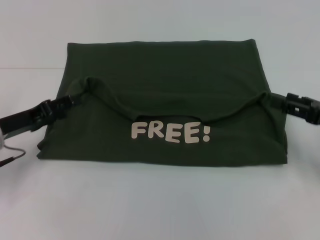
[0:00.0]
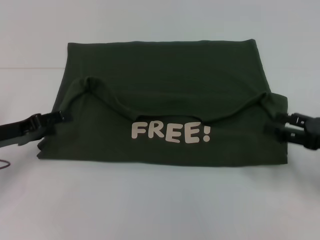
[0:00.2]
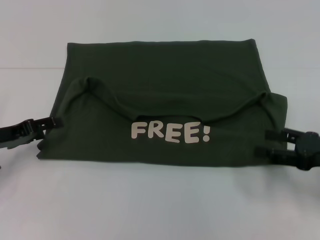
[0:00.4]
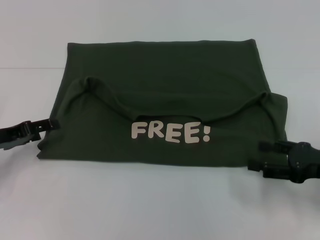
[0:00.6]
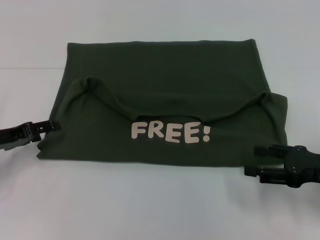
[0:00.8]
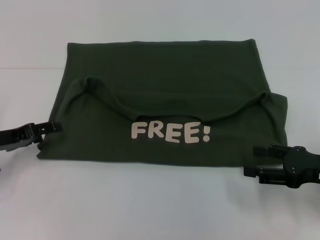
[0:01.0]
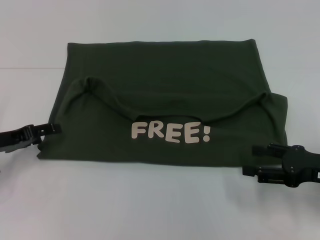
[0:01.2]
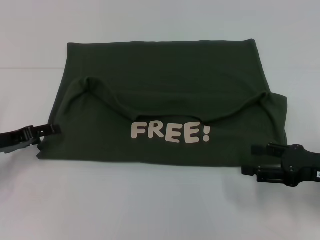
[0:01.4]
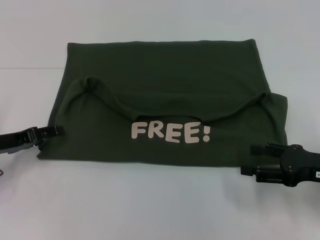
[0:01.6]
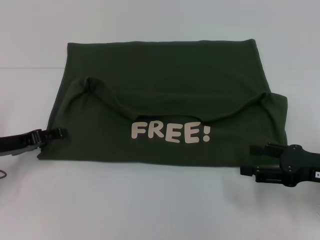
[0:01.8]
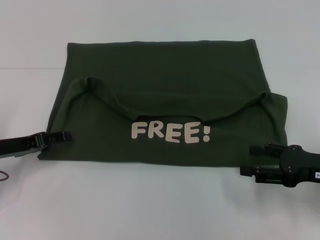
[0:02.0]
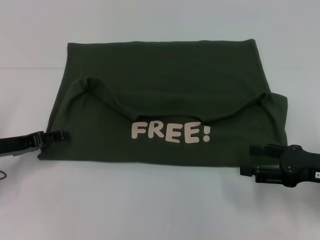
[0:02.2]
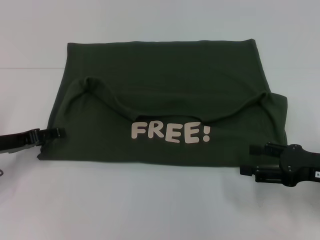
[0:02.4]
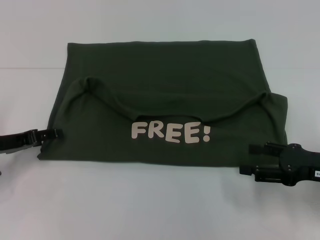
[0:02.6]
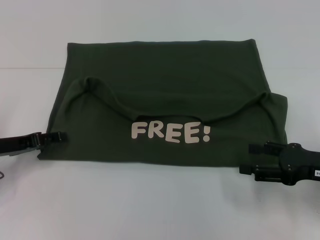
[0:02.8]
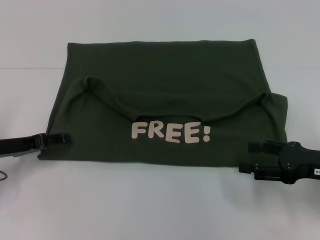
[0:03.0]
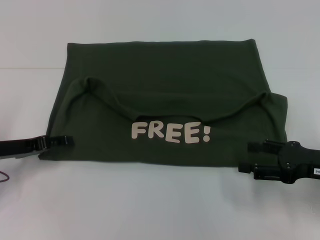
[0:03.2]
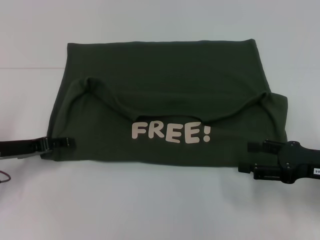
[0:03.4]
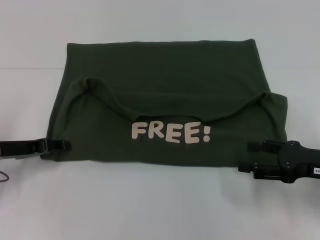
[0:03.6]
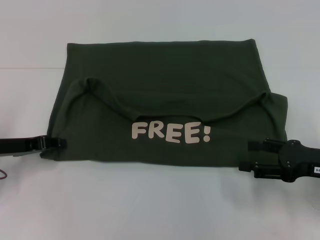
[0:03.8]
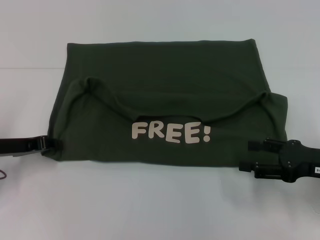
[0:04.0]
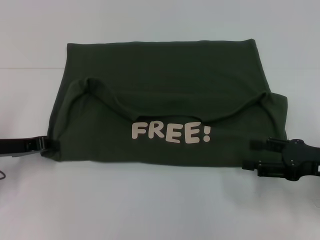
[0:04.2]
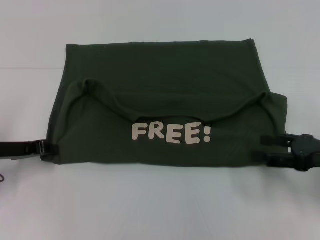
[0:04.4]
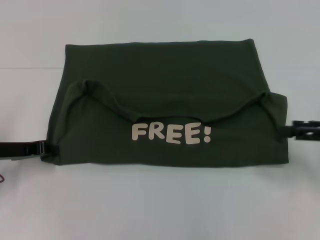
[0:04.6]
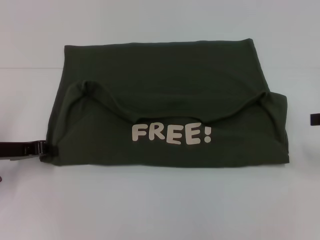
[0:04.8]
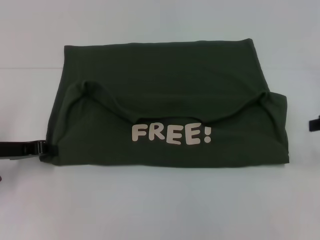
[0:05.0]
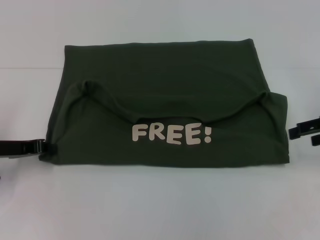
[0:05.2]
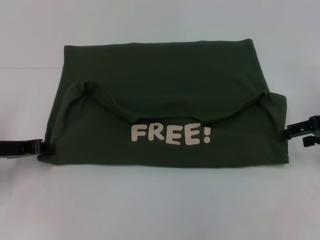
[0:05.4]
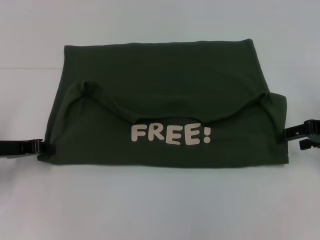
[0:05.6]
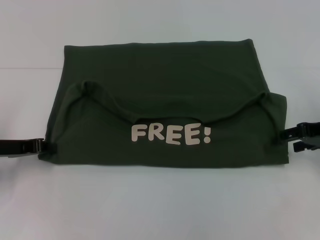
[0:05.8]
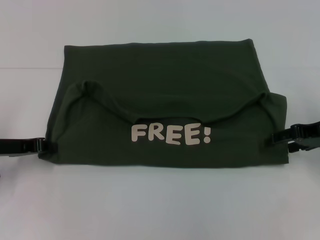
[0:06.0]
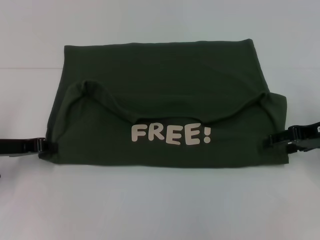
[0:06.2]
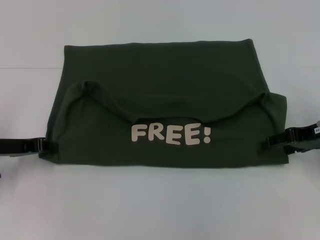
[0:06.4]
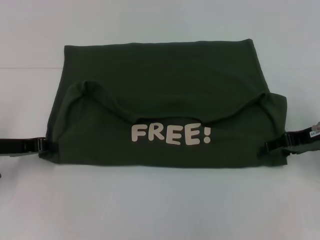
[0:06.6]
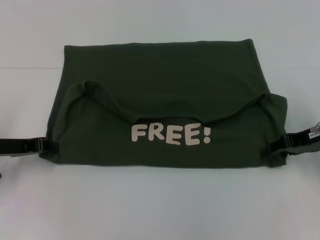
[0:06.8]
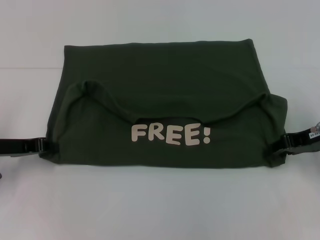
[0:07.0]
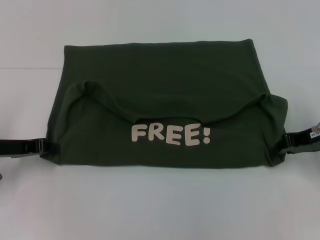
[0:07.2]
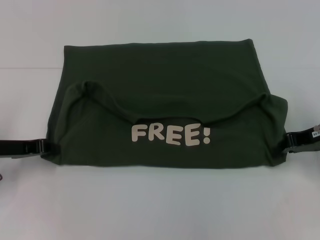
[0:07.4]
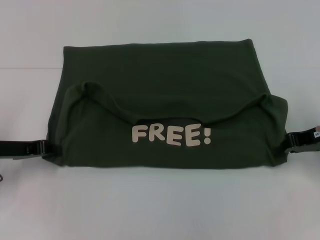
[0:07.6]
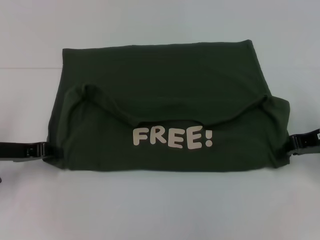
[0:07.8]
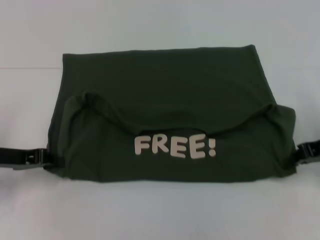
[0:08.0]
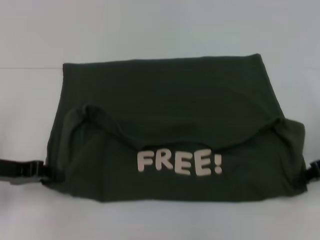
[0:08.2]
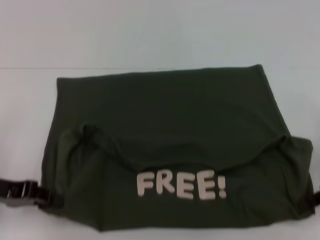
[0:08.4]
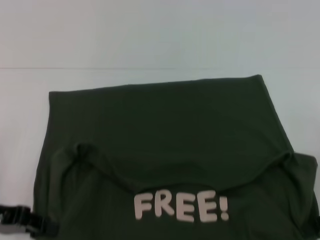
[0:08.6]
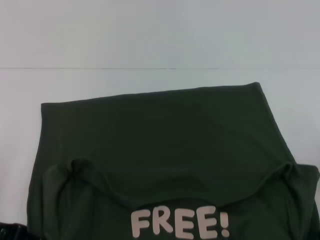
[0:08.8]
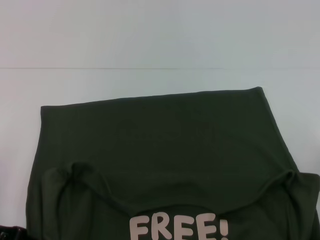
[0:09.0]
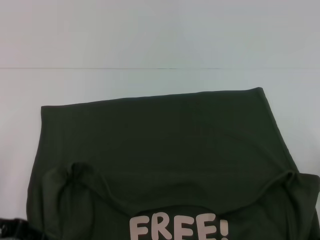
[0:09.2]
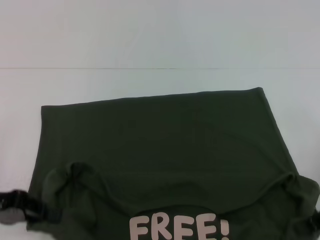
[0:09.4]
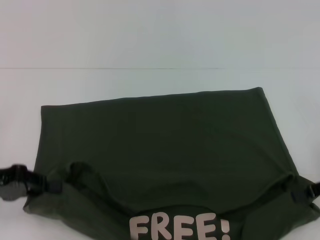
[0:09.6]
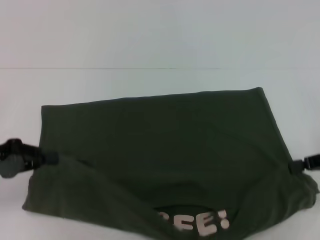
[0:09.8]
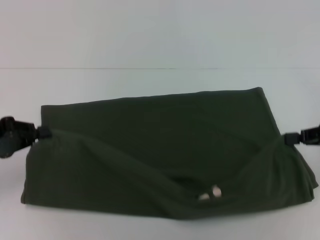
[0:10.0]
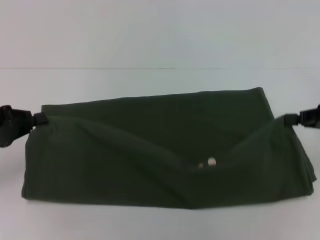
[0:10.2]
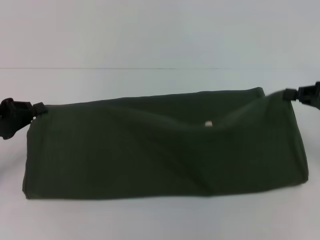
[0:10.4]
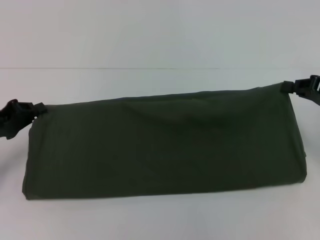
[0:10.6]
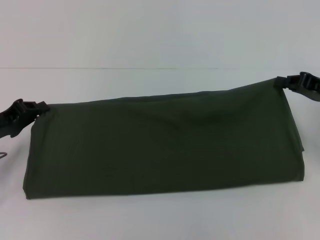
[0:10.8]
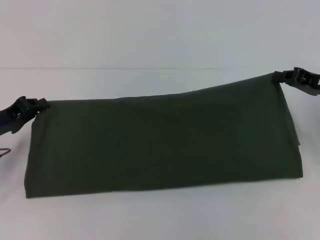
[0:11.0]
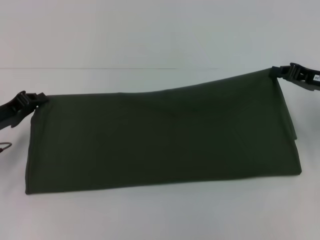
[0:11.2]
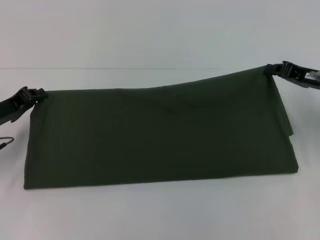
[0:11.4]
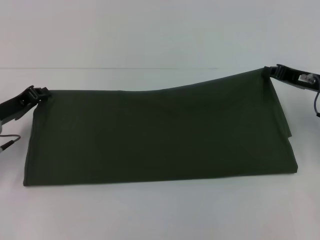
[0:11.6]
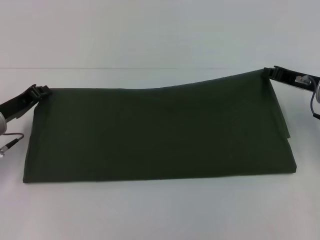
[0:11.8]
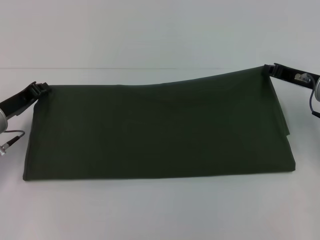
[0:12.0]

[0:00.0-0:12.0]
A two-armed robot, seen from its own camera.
Step, 0:00.2 to 0:09.2: Pull the clothes with your left hand.
Step, 0:00.2 to 0:09.2: Pull the clothes with your right hand.
0:01.6 to 0:03.0: There are only small adjustments of the grippers.
0:03.0 to 0:04.4: The left gripper closes its fingers.
0:04.4 to 0:06.0: The right gripper moves forward, approximately 10 cm.
0:06.0 to 0:07.6: The right gripper closes.
0:07.6 to 0:09.0: Both grippers travel together backward, approximately 10 cm.
0:09.0 to 0:10.4: The two grippers go roughly 5 cm forward.
0:10.4 to 0:12.0: The right gripper shifts some 10 cm to the left and forward; the left gripper heads forward, covering some 5 cm.

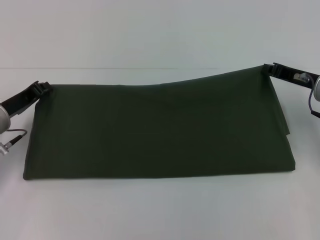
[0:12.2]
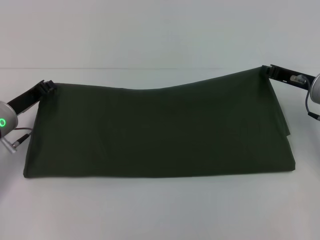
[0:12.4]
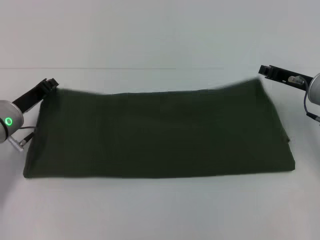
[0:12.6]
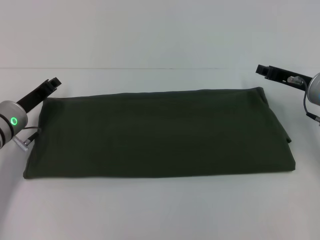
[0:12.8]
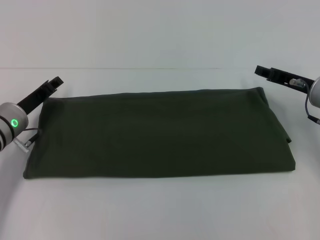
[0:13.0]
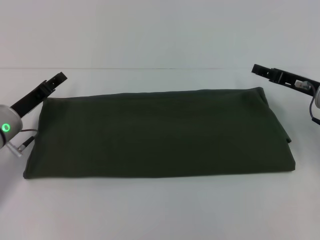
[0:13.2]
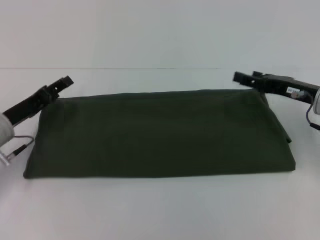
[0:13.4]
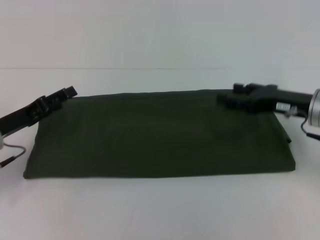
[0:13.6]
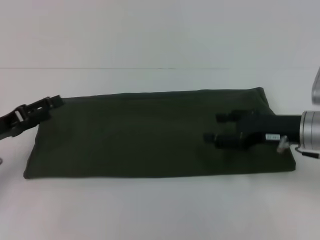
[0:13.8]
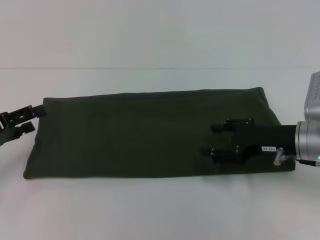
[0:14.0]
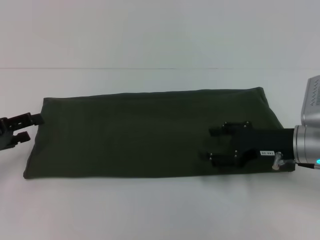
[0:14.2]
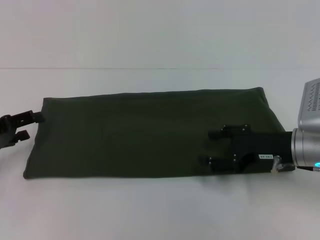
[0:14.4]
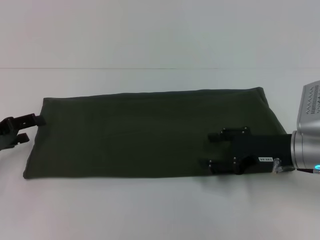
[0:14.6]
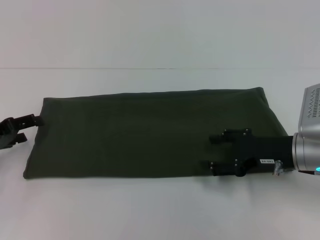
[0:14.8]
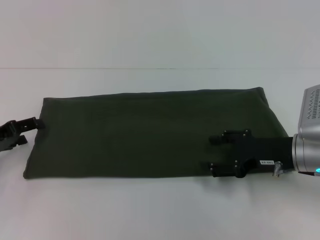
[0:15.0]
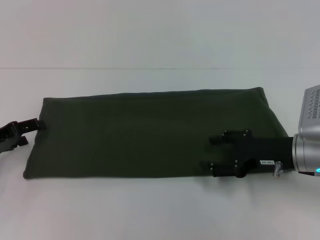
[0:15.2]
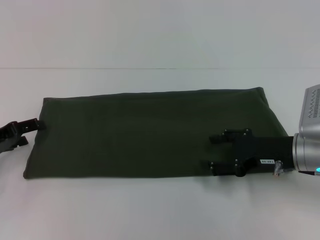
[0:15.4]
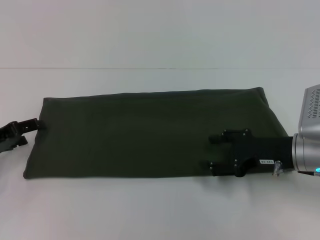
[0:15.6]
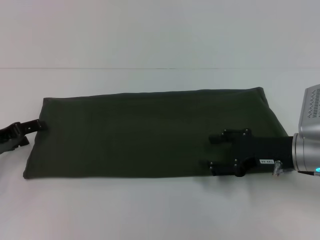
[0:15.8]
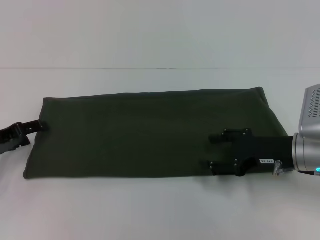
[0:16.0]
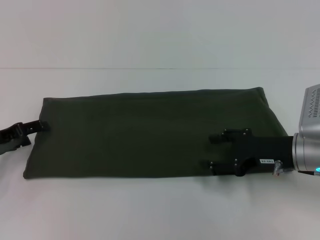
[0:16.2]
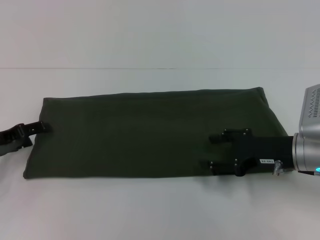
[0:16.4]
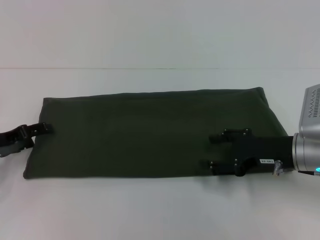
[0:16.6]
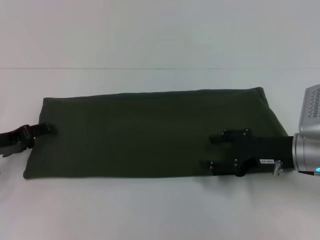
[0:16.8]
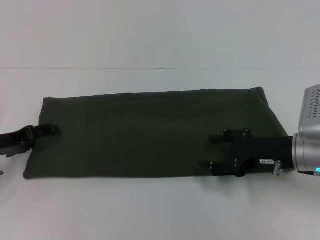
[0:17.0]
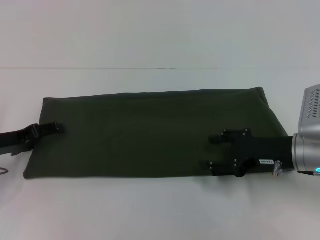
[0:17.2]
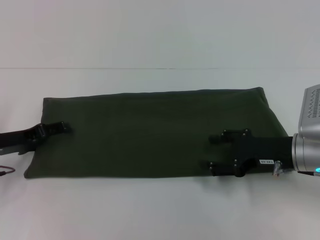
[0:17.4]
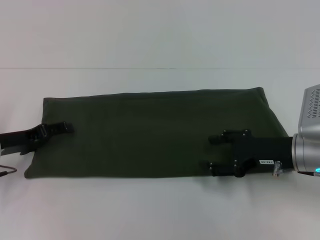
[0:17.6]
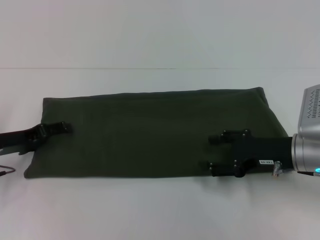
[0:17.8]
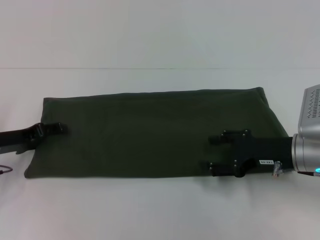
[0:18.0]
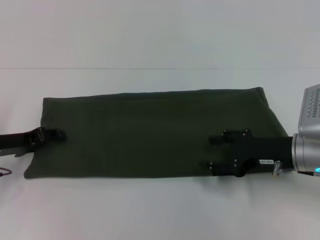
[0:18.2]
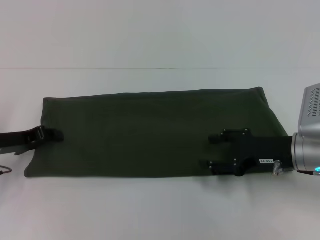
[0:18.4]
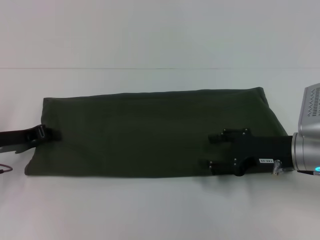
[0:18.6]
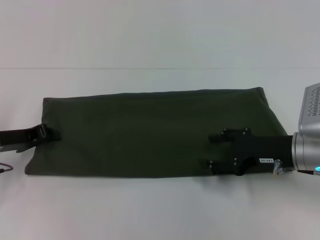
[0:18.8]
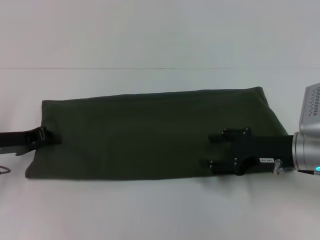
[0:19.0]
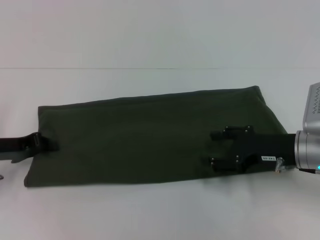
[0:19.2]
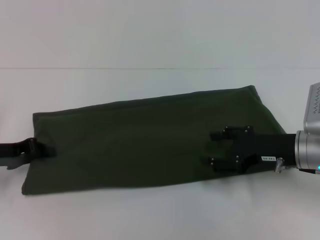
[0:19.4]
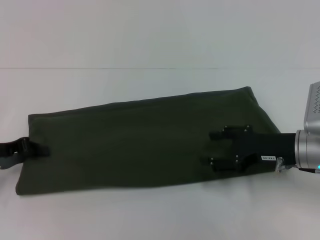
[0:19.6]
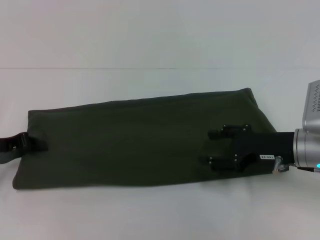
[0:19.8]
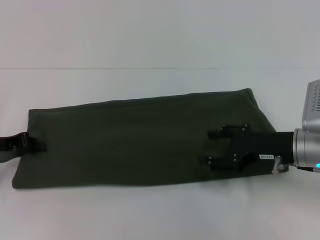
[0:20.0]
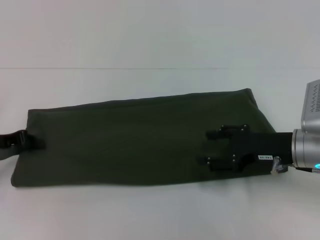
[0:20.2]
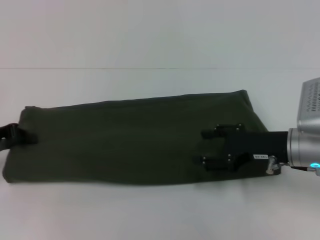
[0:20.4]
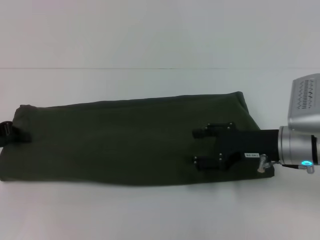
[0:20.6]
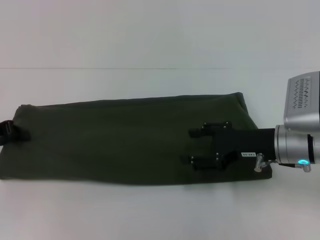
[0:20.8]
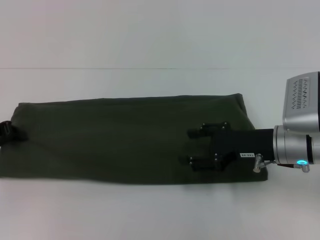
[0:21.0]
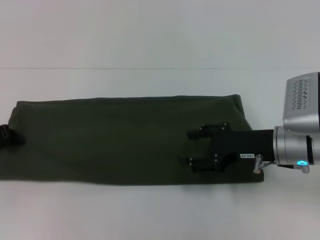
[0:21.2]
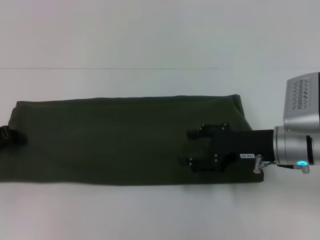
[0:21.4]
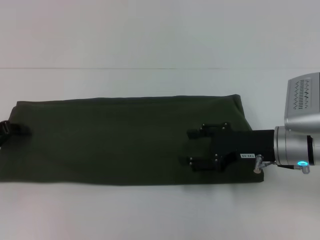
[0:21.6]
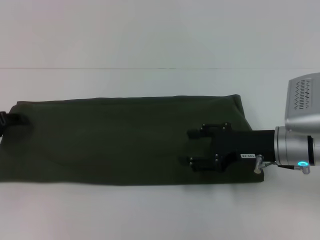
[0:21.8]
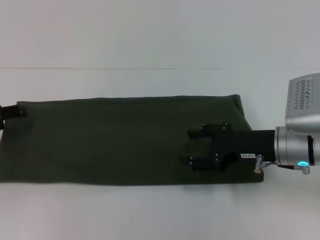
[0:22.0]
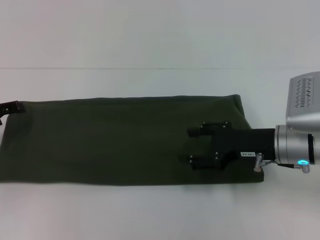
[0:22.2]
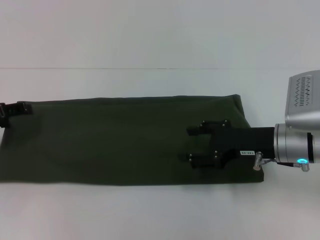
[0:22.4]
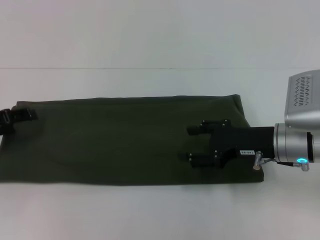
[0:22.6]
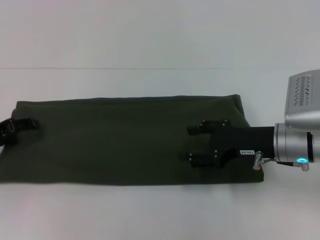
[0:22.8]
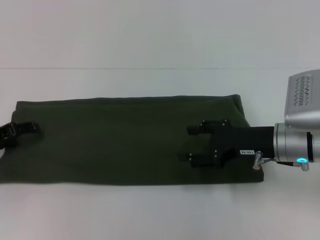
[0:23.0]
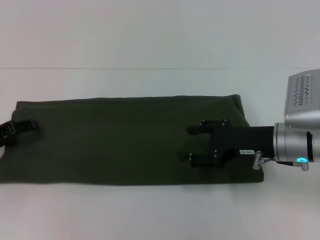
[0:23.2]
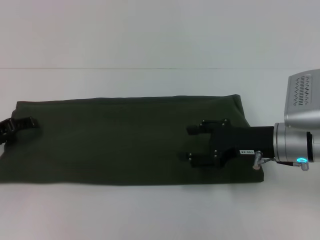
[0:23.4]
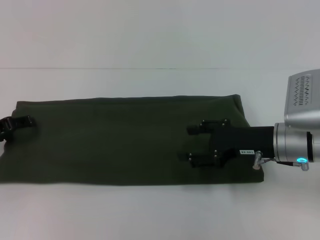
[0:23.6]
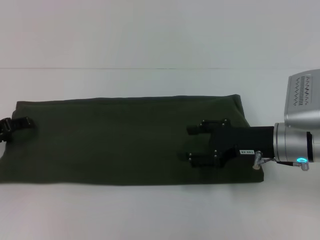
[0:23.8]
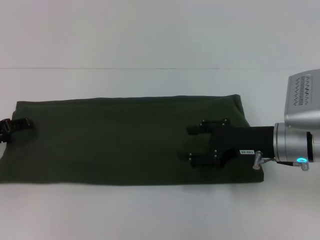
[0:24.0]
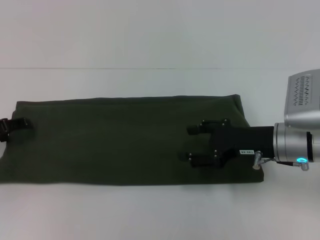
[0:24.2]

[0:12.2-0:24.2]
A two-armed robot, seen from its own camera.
0:12.2 to 0:13.8: Both grippers travel together backward, approximately 5 cm. The left gripper opens its fingers, while the right gripper opens its fingers.
0:15.2 to 0:18.2: The grippers stay close to where they were, moving slightly.
0:18.2 to 0:19.8: The left gripper closes.
0:19.8 to 0:21.2: The grippers stay close to where they were, moving slightly.
0:21.2 to 0:22.6: The left gripper opens.
